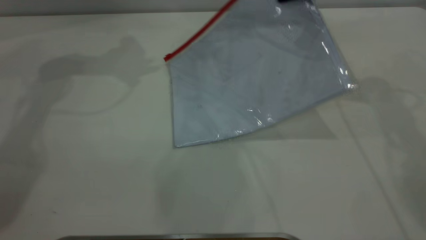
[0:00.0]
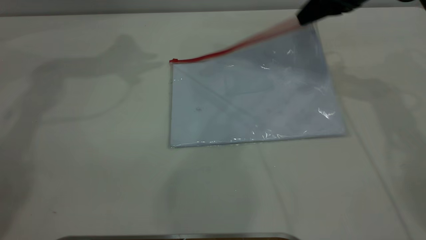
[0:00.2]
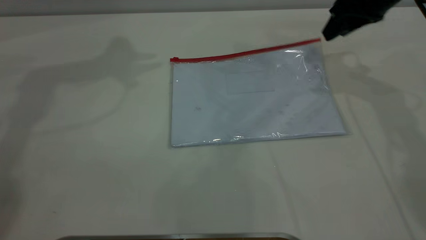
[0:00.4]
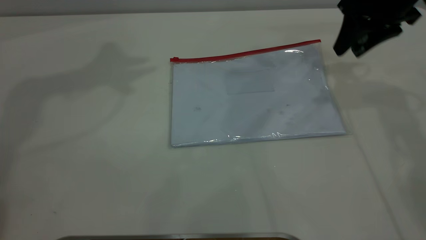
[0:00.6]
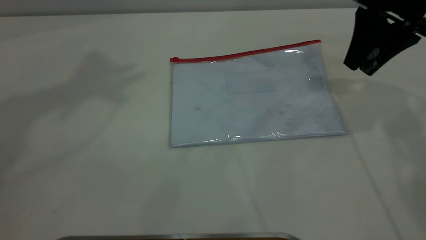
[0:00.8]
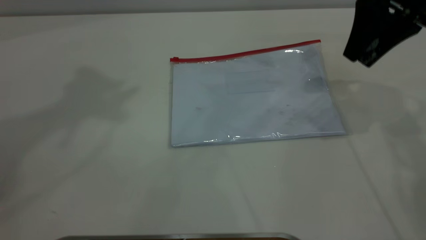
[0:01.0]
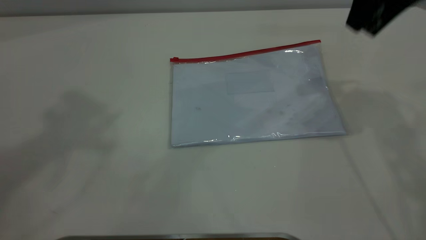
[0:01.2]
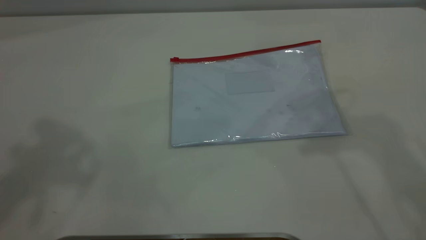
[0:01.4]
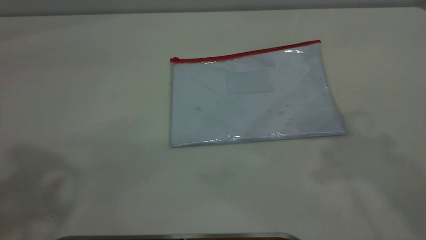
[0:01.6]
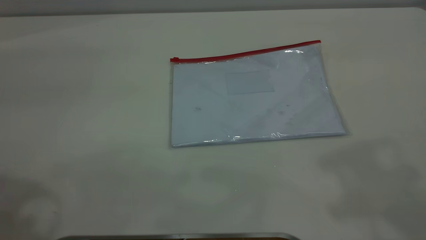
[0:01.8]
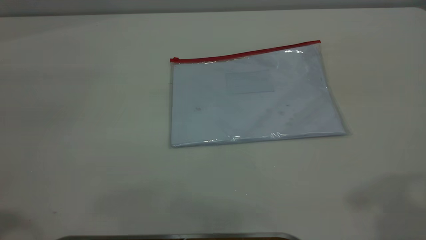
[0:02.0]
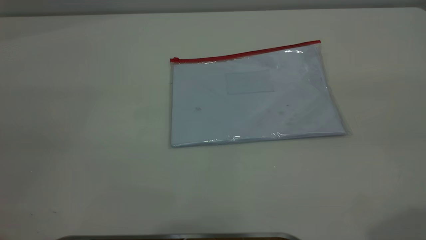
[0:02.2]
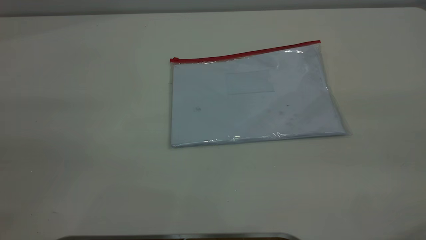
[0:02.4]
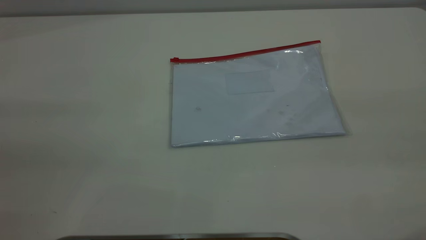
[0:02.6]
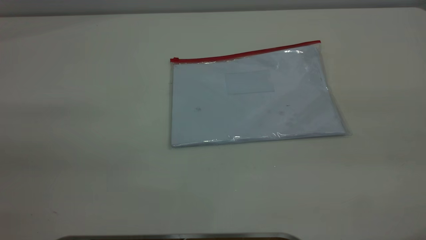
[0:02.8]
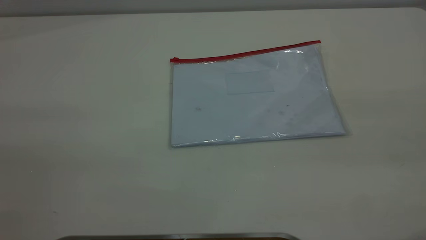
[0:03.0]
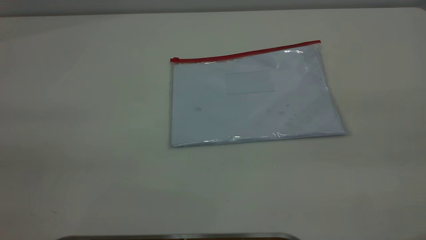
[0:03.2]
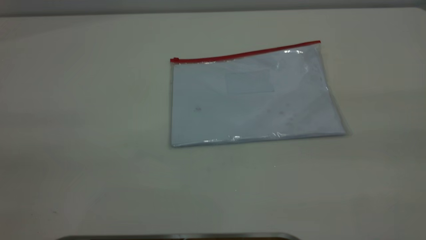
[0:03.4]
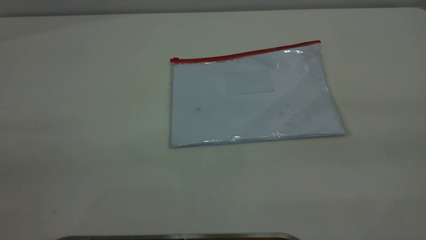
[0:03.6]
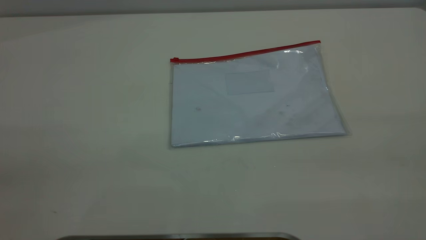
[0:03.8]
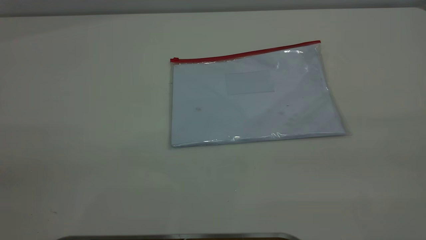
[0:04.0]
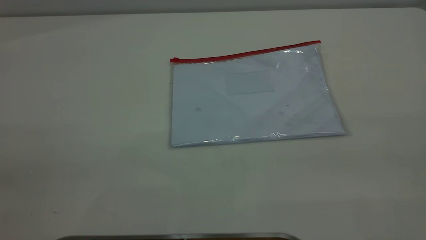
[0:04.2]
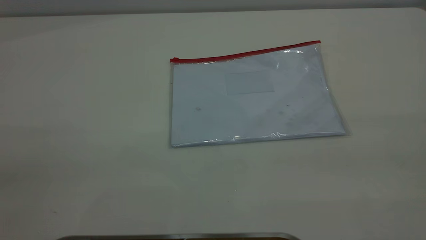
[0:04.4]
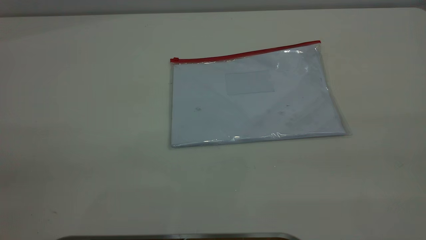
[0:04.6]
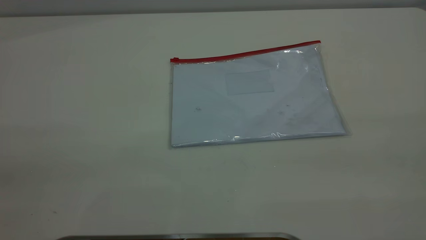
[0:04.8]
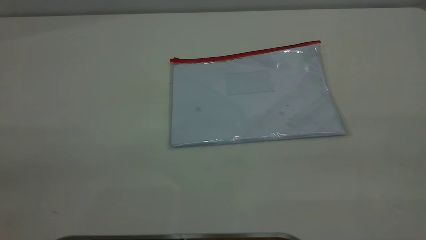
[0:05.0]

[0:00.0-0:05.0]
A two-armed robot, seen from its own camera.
Step, 0:00.0 to 0:01.2: Place the transparent plastic bag.
0:00.0 to 0:01.6: The right gripper moves upward and backward, approximately 35 cm, and opens. Meanwhile the left gripper goes approximately 35 cm backward and upward.
